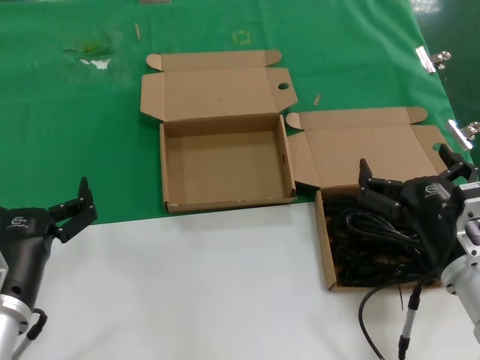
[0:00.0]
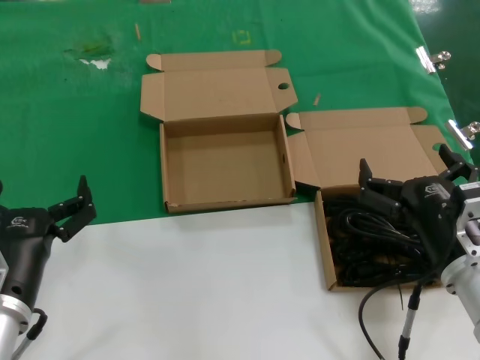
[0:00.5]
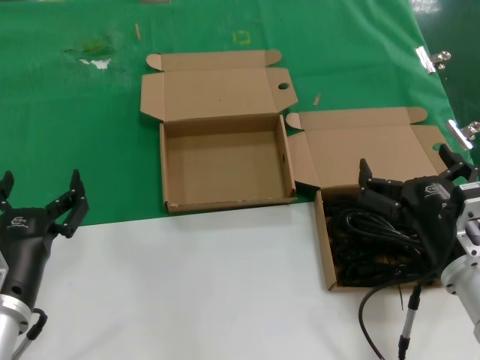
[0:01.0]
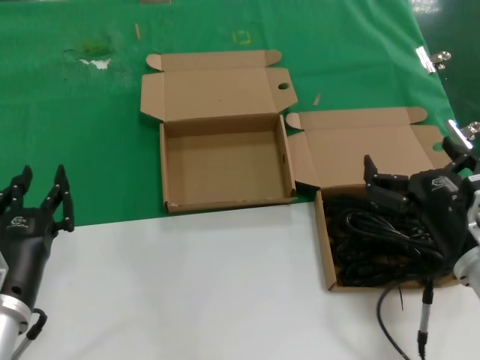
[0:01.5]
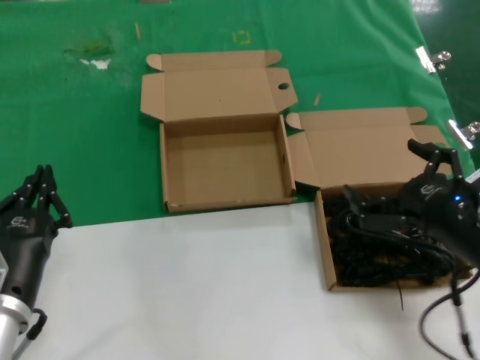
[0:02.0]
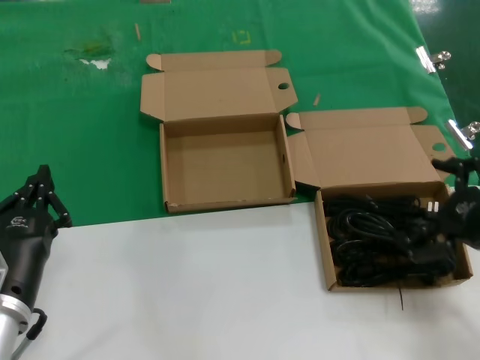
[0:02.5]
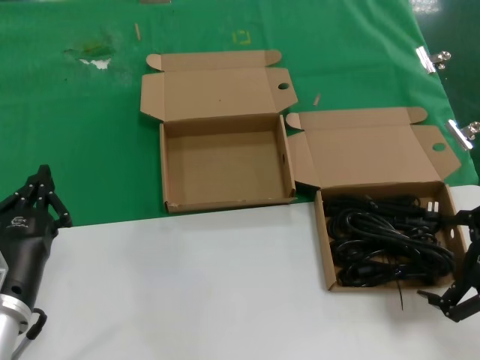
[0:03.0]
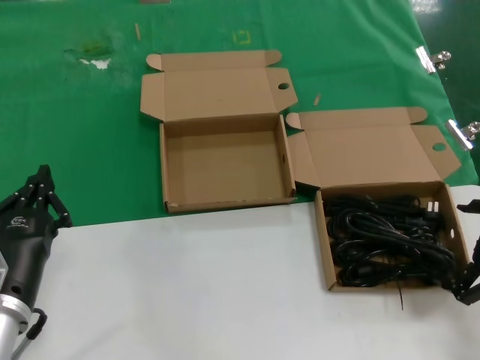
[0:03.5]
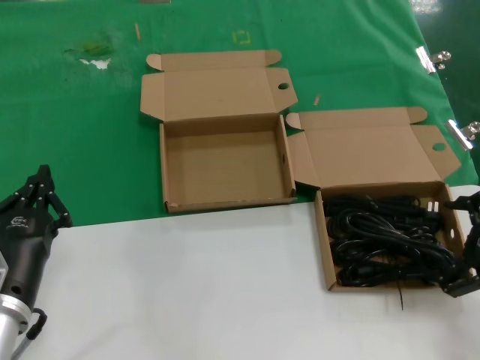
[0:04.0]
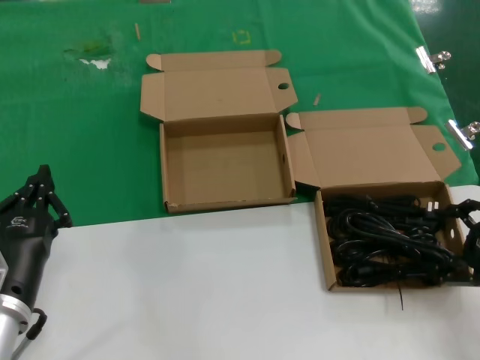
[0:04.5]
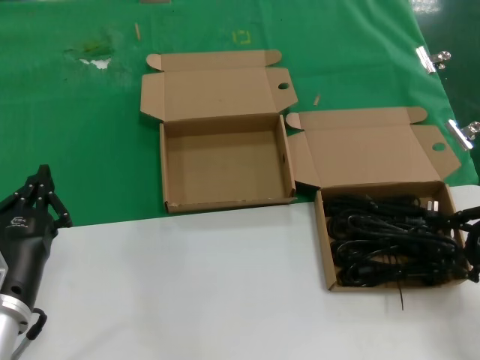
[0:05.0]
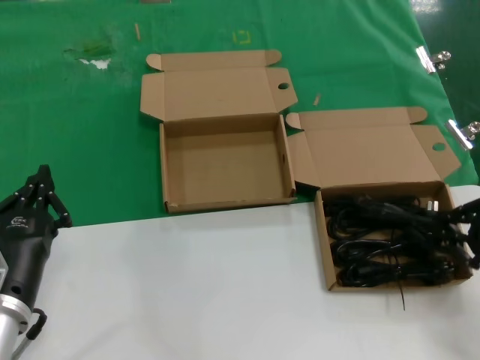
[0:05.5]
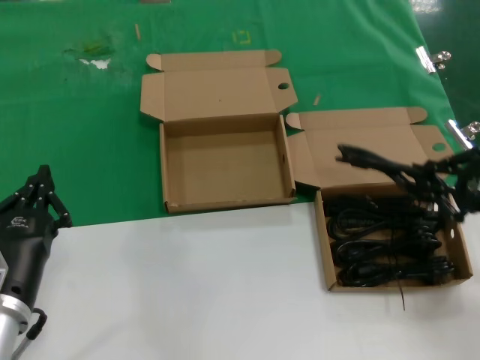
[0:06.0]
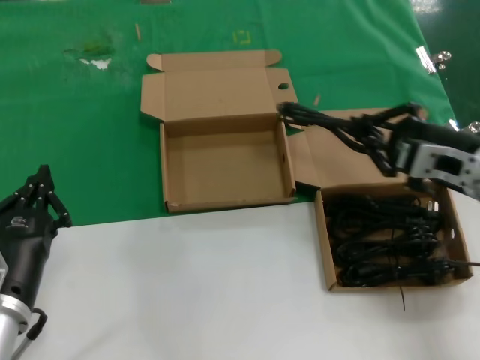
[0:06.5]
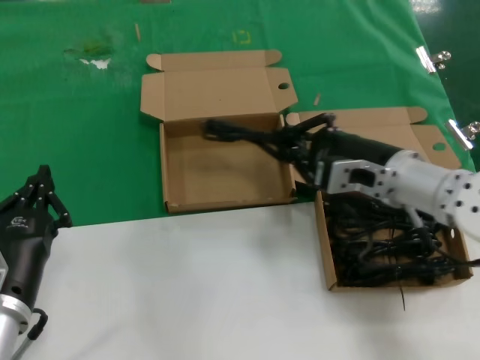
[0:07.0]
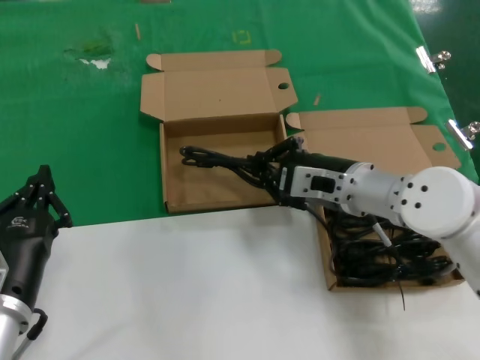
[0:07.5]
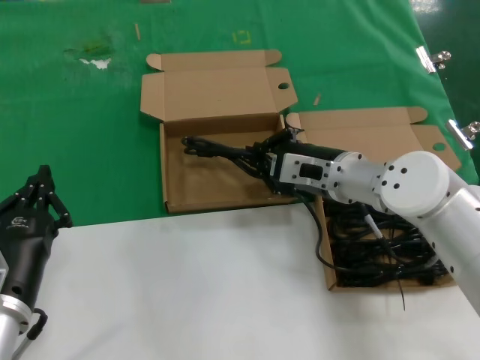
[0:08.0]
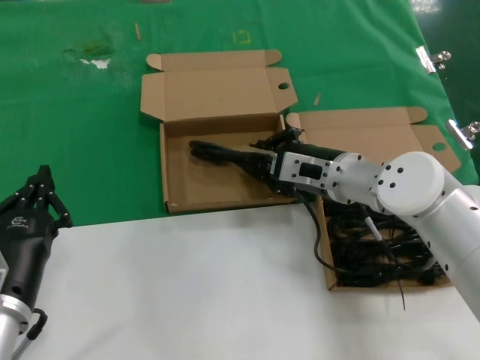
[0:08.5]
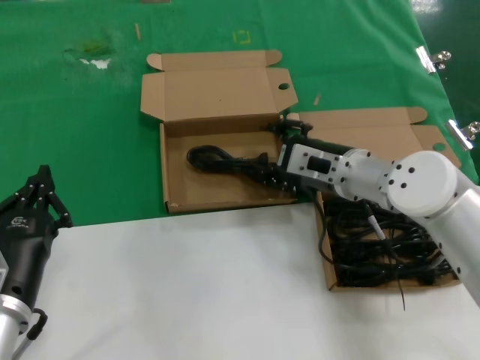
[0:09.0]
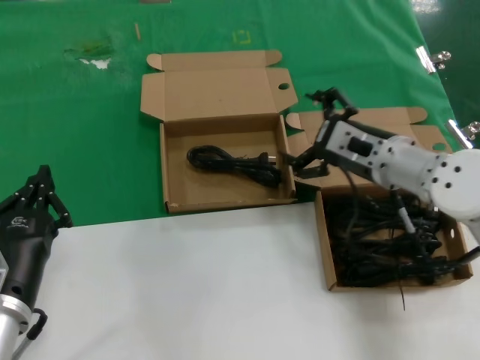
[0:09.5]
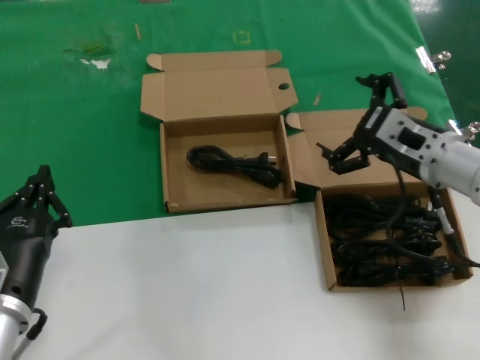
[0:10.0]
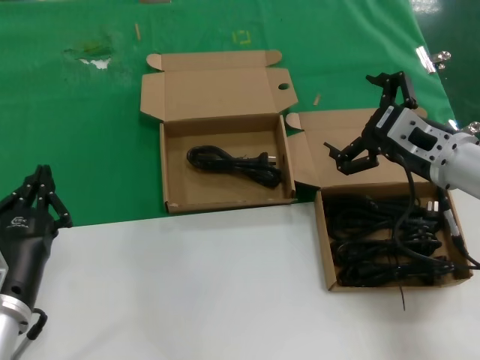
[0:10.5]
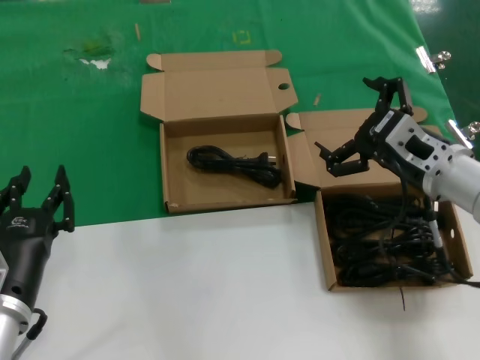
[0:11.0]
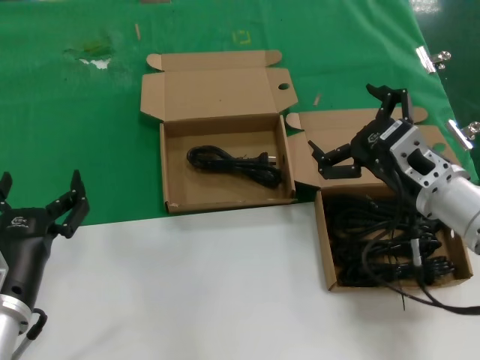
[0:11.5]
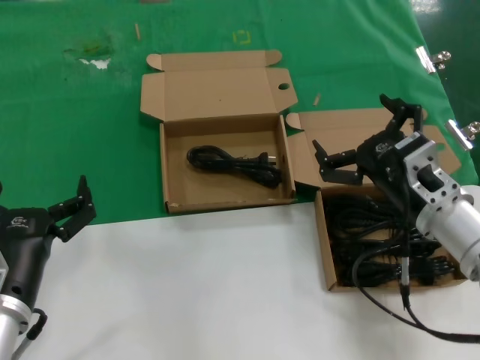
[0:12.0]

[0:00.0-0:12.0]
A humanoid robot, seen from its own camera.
Task of the whole recording: take the parts from the box containing them and put them into an empty box.
Step, 0:00.0 to 0:05.0: Grasp the data cable.
Step, 0:05.5 to 0:08.5: Place the data cable in the another box.
0:00.0 to 0:02.0: The right hand moves to the right, roughly 5 cm.
0:02.0 to 0:04.0: The right hand is displaced to the right by approximately 10 cm.
0:04.0 to 0:06.0: The right hand shifts by roughly 5 cm.
0:06.0 to 0:08.0: The right hand heads to the left and forward, covering some 25 cm.
0:08.0 to 0:10.0: The right hand shifts roughly 10 cm to the right.
0:10.0 to 0:12.0: The right hand shifts some 5 cm backward.

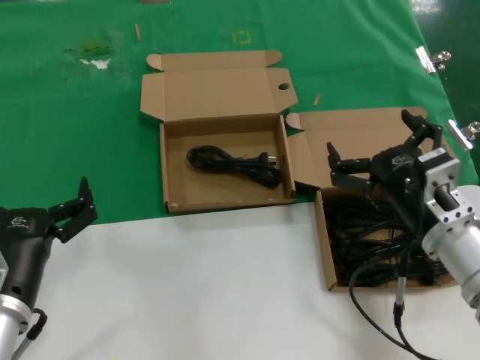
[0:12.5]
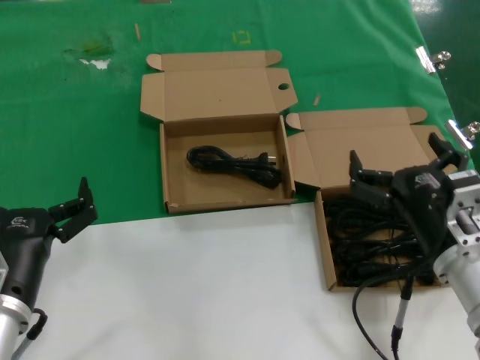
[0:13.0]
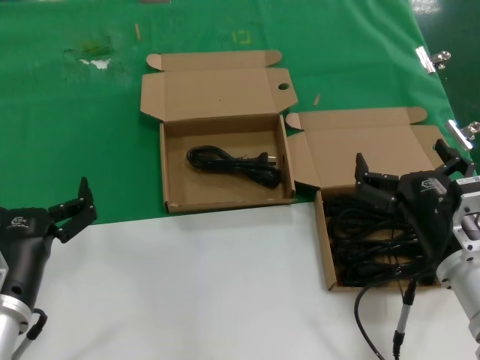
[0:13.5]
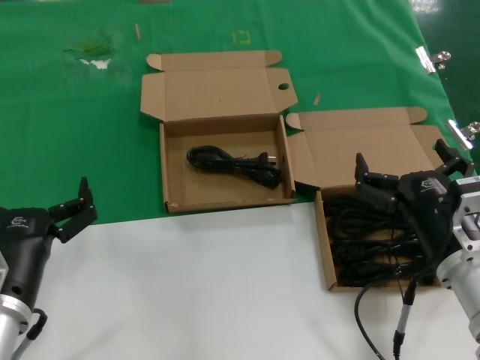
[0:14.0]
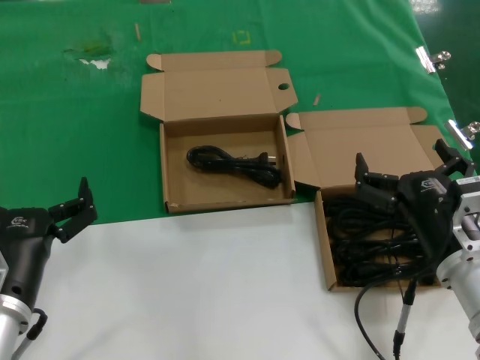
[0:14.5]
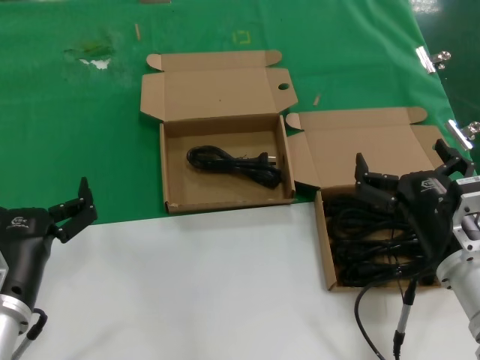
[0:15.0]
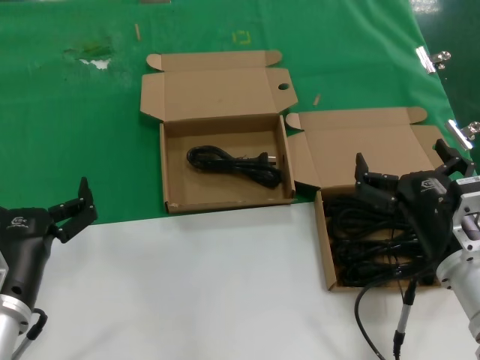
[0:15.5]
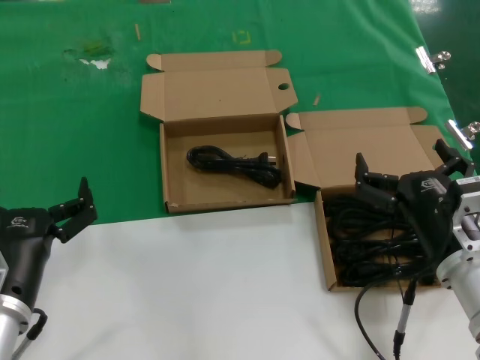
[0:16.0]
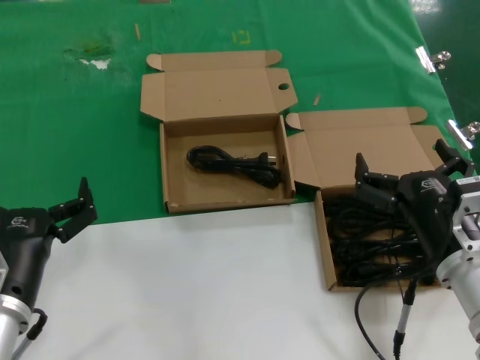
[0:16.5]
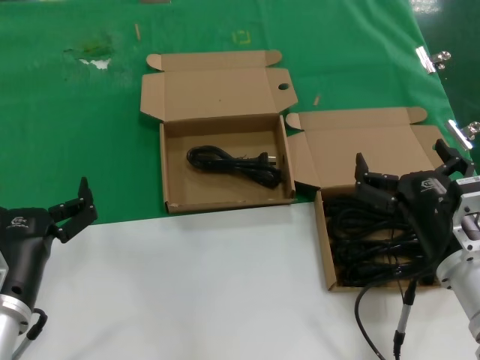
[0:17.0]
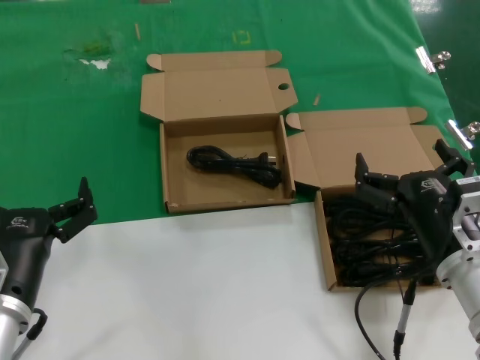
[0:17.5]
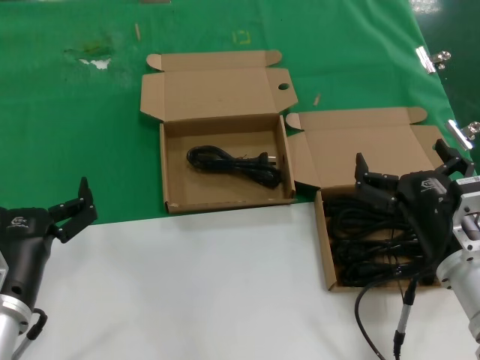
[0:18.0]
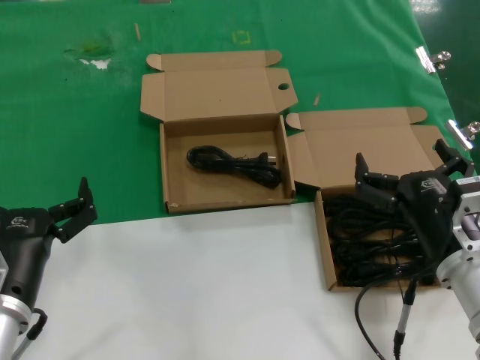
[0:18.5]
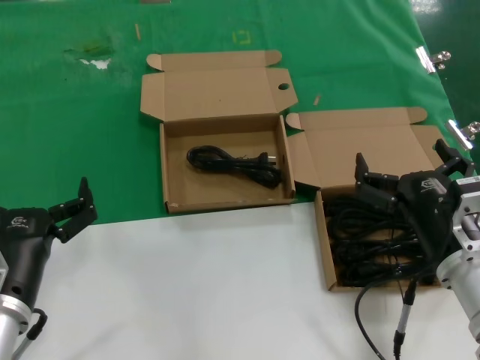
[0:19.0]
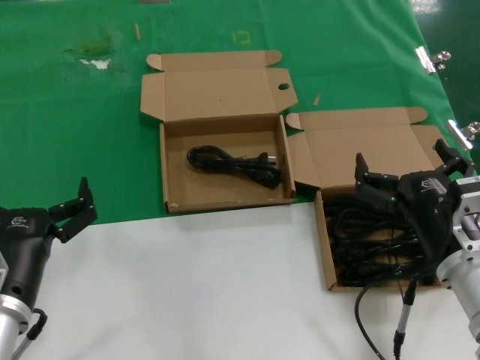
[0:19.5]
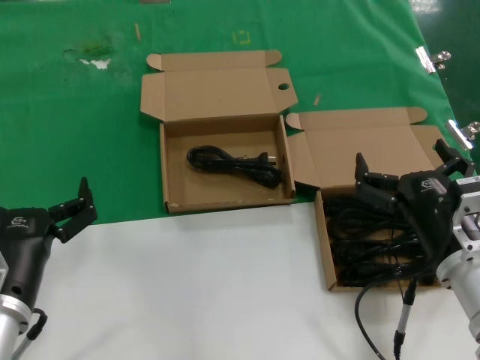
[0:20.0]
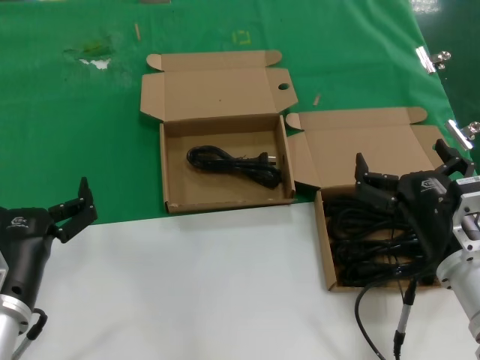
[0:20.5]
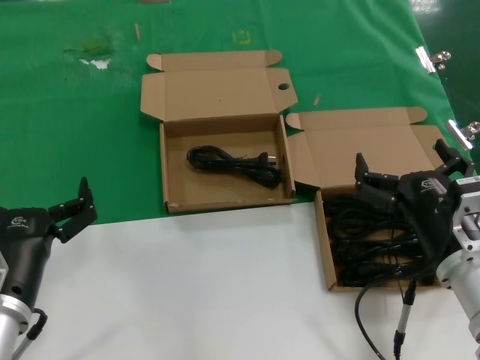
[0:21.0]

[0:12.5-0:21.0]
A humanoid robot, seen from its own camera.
Task of the whole recording: take the parts from the box containing them and put them into an empty box.
0:12.5 to 0:14.5: The hands stay close to where they were, moving slightly.
0:14.5 to 0:21.0: The two hands keep their place.
